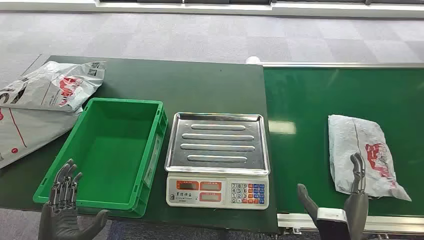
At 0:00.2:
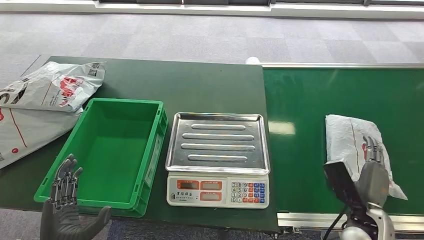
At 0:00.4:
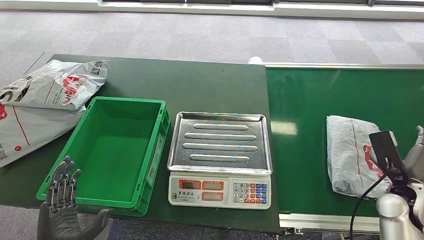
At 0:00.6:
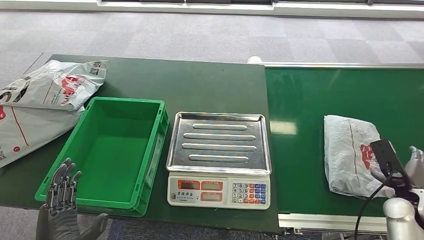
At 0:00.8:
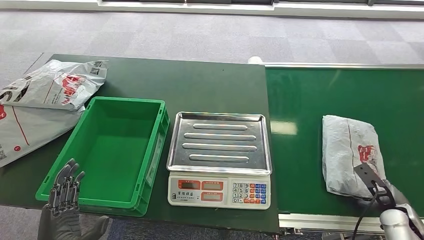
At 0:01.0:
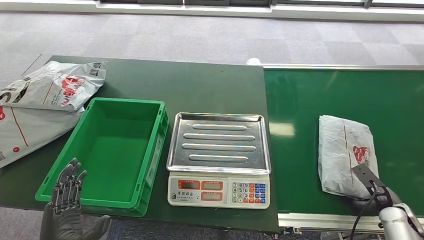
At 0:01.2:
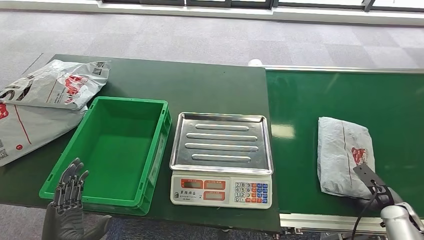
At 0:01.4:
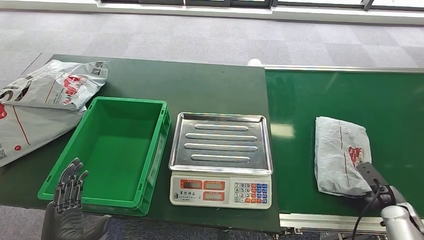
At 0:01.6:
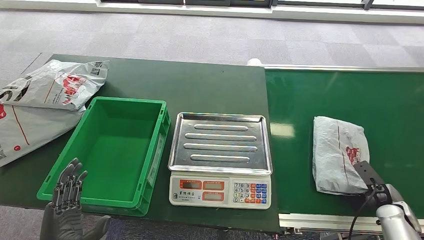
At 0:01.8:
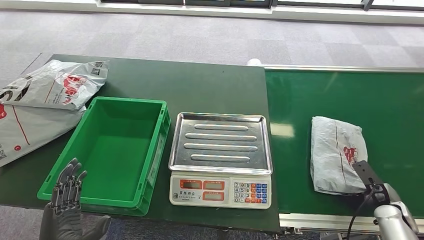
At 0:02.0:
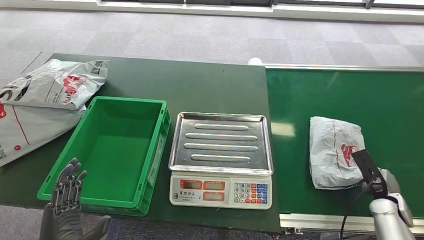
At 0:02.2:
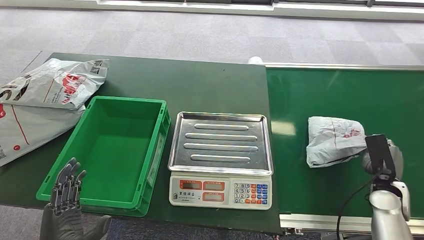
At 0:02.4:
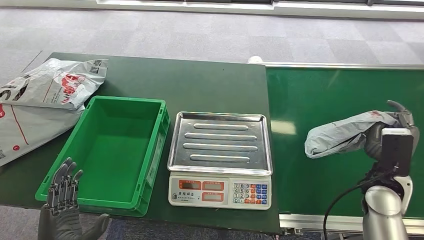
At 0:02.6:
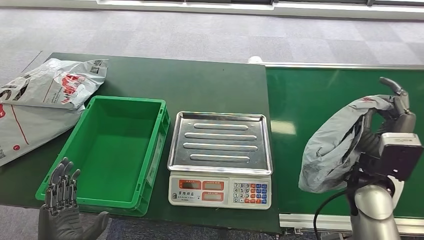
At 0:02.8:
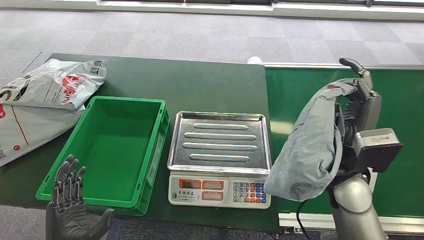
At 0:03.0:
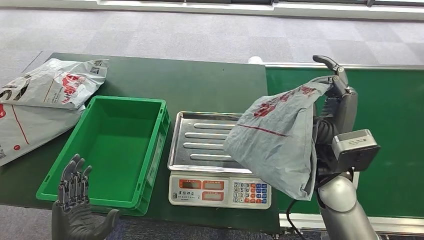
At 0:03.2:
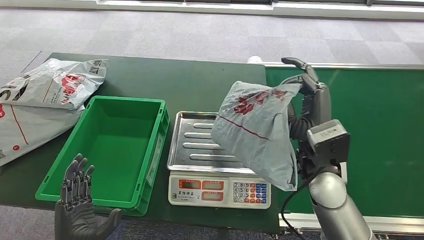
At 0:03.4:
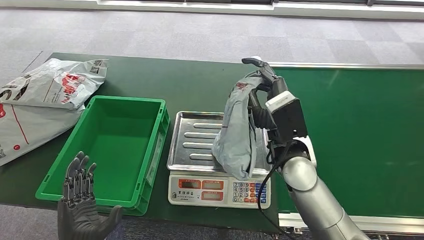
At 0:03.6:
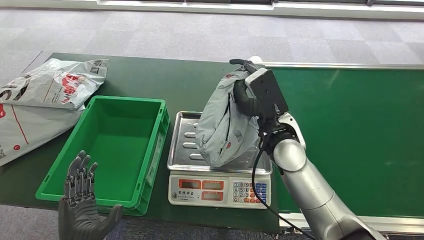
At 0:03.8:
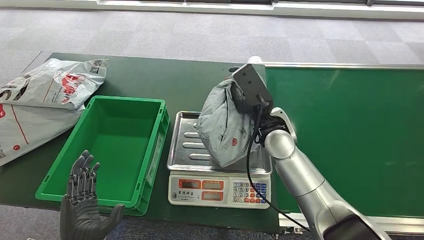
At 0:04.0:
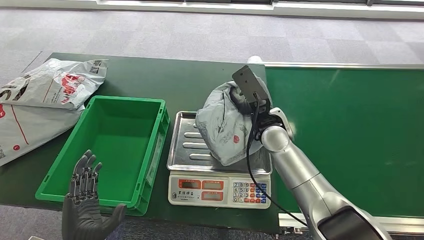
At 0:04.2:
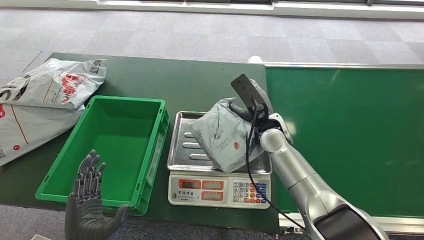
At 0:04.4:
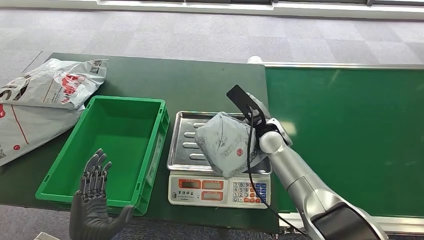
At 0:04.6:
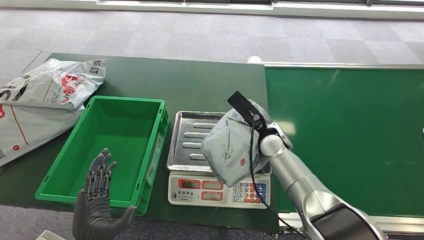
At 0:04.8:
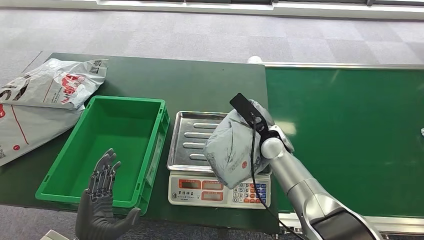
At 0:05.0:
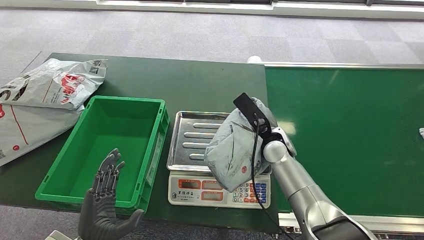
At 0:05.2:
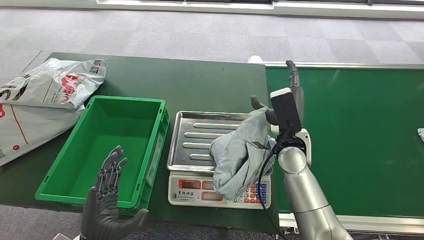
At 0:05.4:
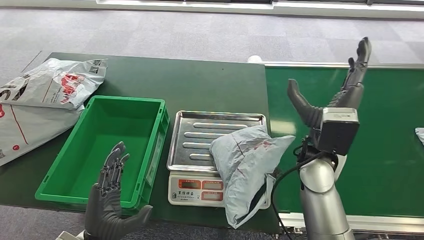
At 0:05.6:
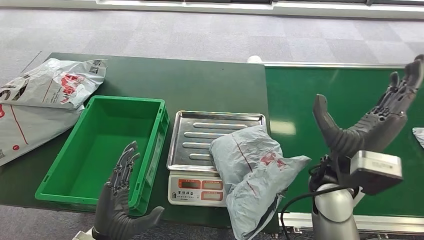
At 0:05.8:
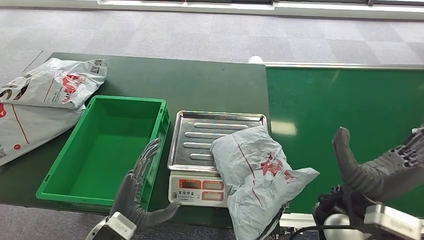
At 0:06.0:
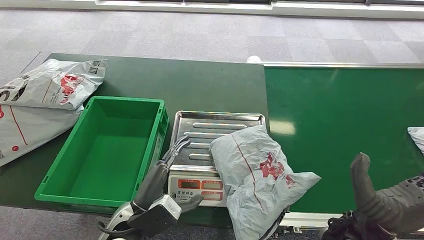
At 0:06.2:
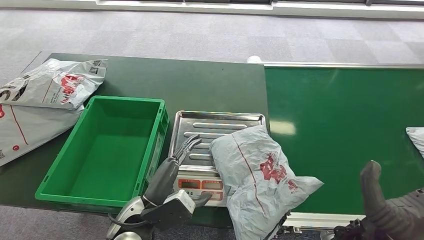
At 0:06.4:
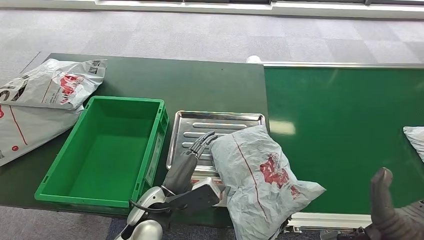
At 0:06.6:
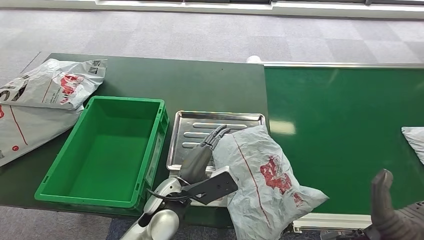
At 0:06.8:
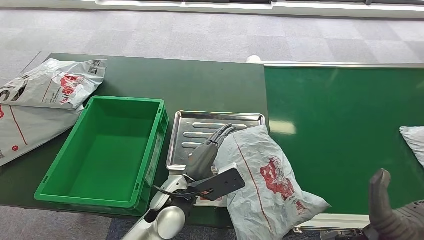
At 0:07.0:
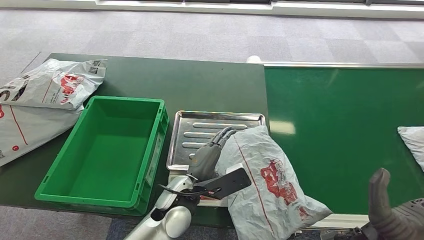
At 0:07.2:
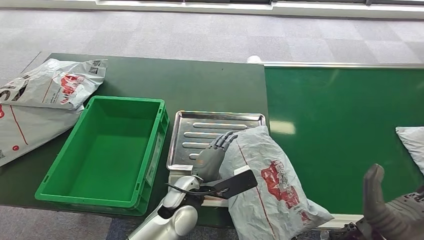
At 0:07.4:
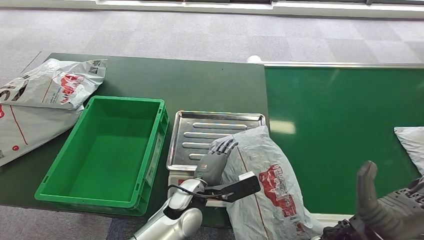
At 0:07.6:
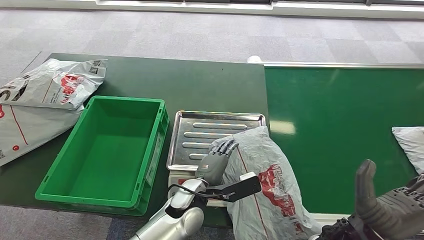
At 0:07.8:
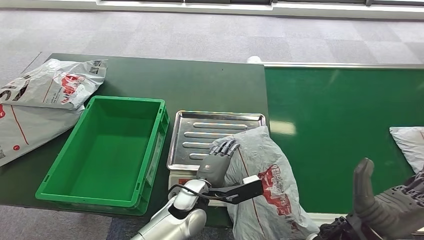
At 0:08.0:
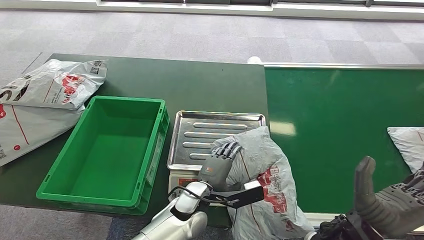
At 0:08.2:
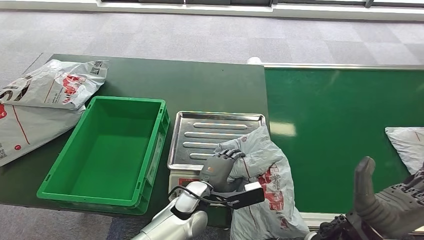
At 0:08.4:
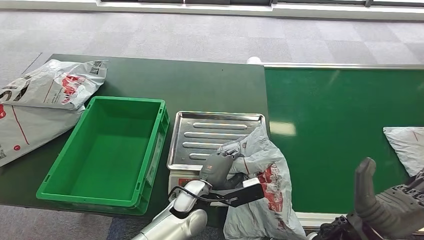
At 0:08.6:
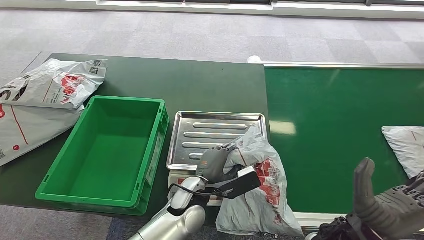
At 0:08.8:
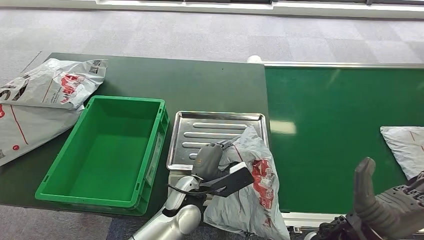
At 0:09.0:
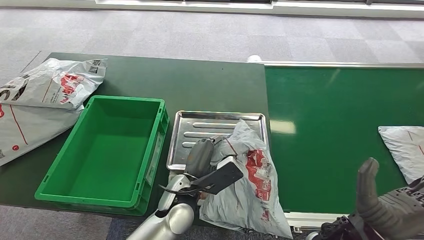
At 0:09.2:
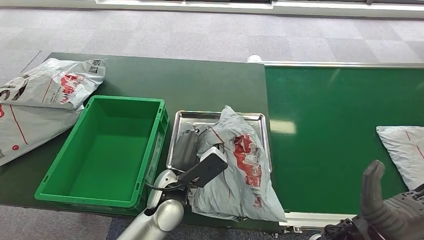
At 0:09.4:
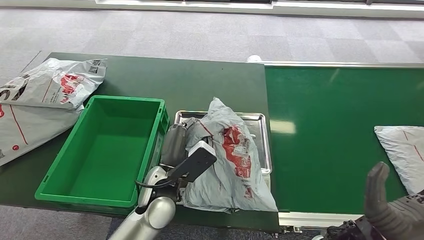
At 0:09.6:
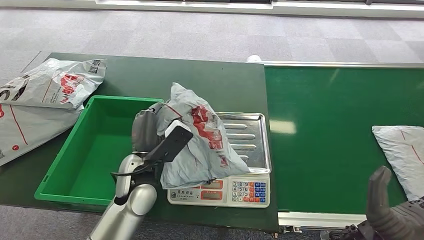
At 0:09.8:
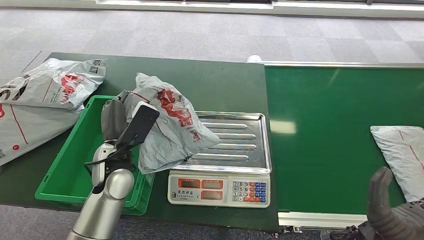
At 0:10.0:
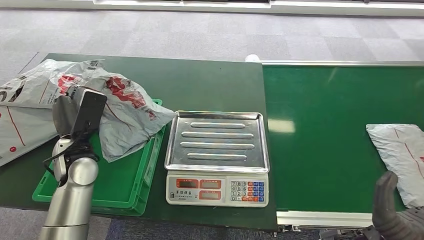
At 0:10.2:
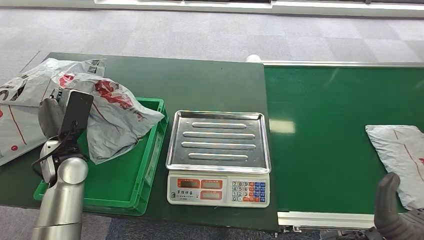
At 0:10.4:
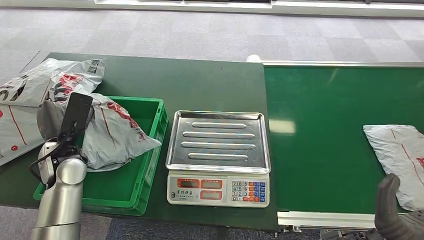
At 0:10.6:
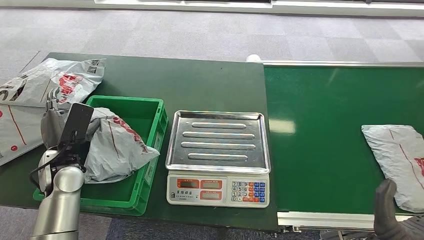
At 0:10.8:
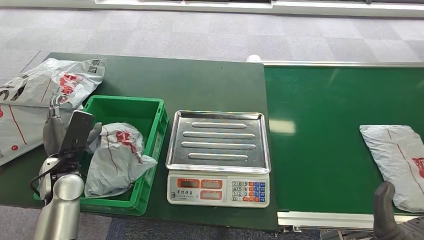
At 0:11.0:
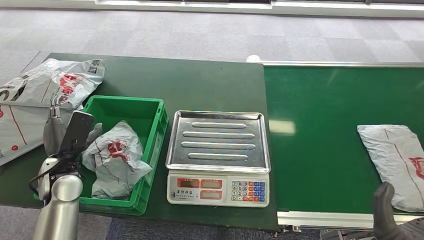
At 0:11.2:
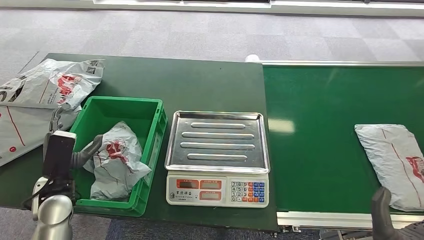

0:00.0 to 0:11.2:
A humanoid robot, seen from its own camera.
Step, 0:00.0 to 0:03.0: Pick up the package from the conveyor belt.
Step, 0:03.2 to 0:05.6: Place the package onto the inbound machine.
Step, 0:05.8 to 0:09.6: Pick up the package from the inbound machine.
Step, 0:09.8 to 0:11.2: Place the package into the parcel locker.
0:03.2 to 0:04.8: The right hand goes some 15 cm downward and forward.
0:04.8 to 0:06.4: The left hand is displaced to the right and forward by roughly 15 cm, while the right hand travels backward by approximately 25 cm.
0:06.4 to 0:08.0: The left hand heads to the right and downward, covering some 10 cm.

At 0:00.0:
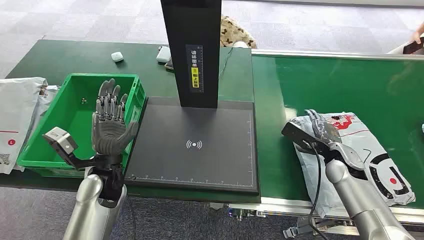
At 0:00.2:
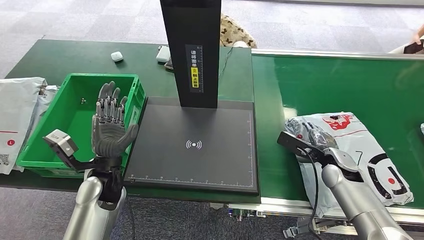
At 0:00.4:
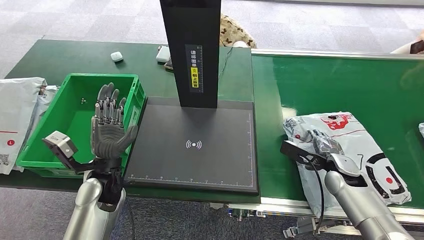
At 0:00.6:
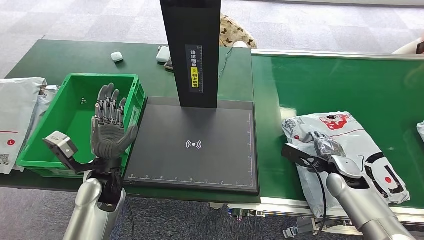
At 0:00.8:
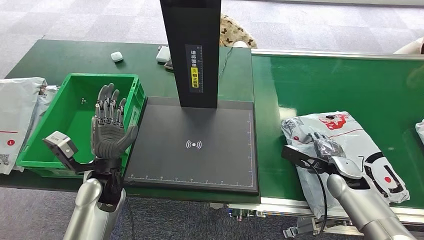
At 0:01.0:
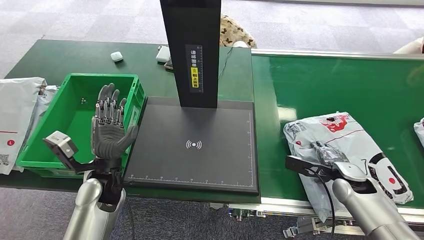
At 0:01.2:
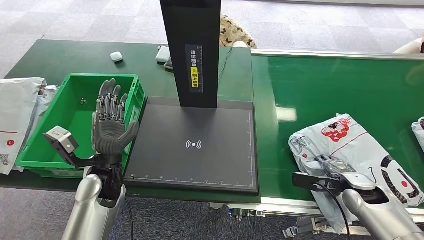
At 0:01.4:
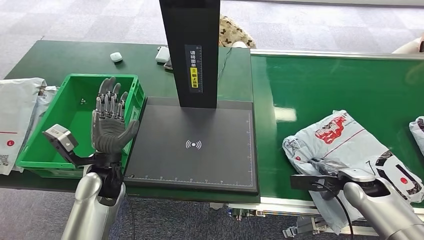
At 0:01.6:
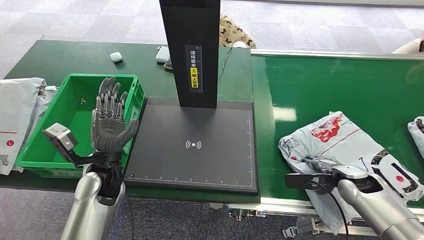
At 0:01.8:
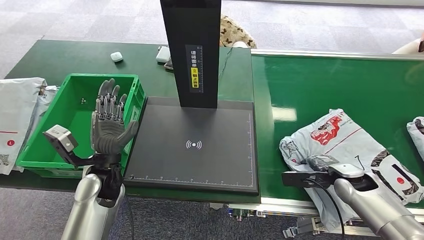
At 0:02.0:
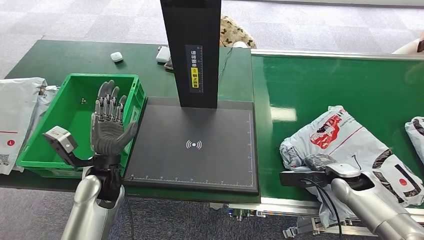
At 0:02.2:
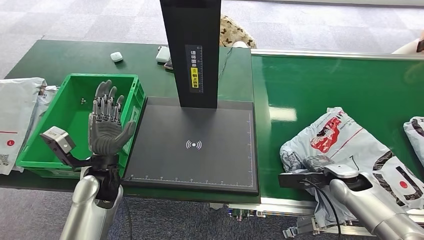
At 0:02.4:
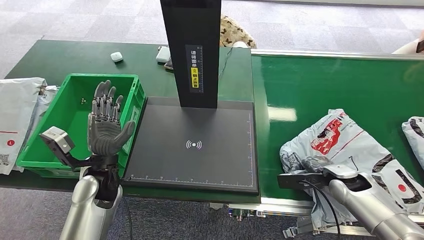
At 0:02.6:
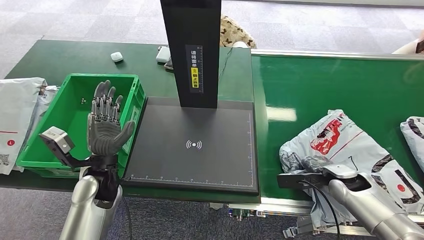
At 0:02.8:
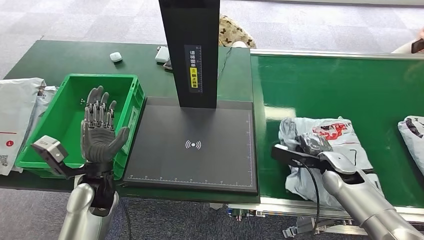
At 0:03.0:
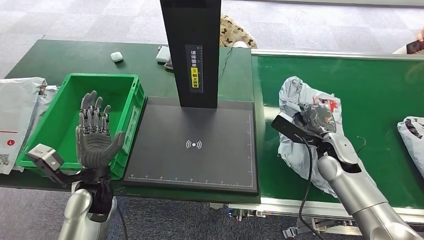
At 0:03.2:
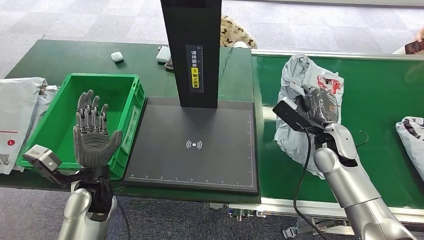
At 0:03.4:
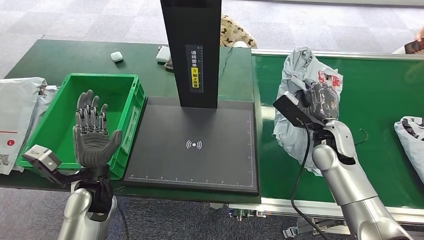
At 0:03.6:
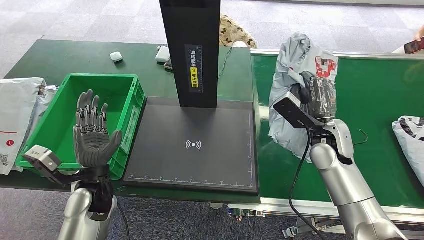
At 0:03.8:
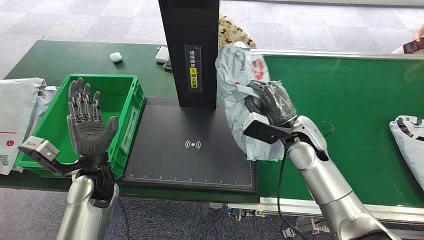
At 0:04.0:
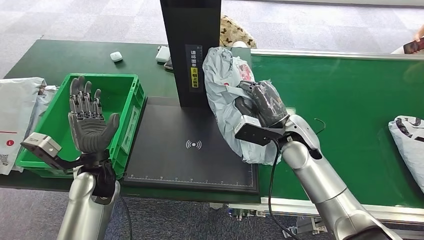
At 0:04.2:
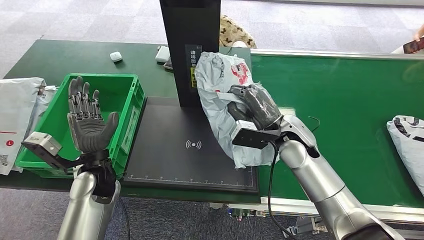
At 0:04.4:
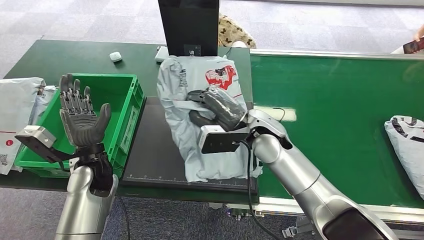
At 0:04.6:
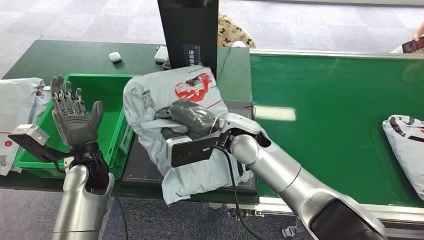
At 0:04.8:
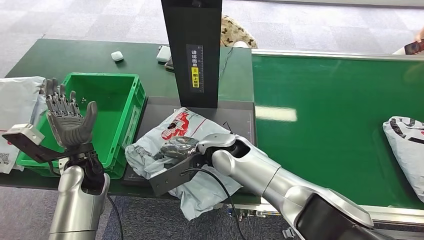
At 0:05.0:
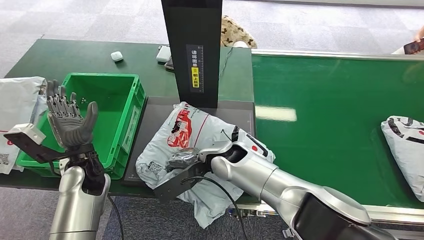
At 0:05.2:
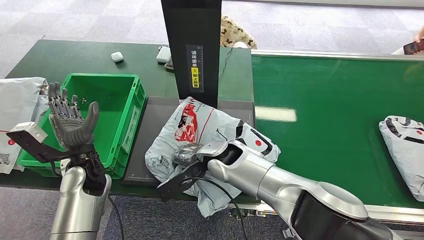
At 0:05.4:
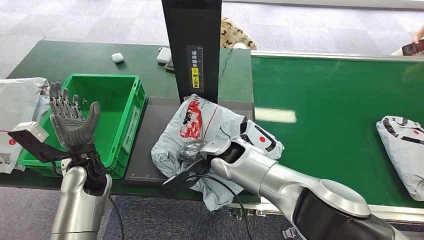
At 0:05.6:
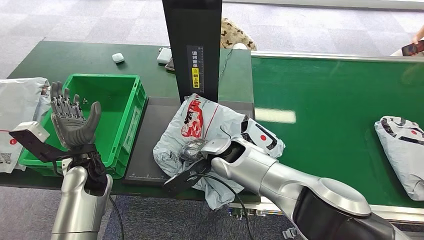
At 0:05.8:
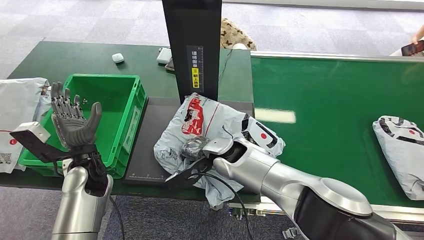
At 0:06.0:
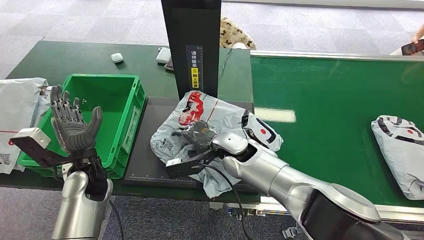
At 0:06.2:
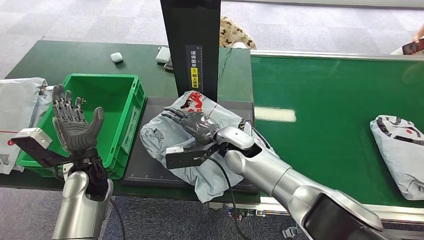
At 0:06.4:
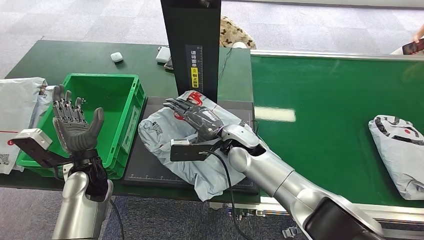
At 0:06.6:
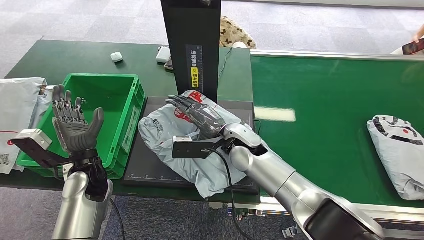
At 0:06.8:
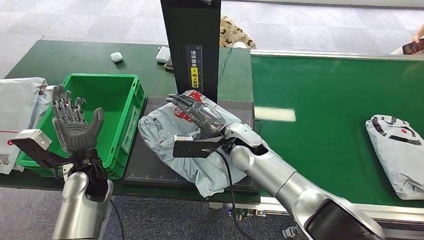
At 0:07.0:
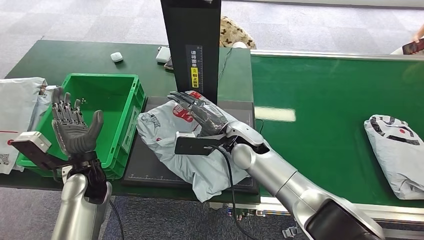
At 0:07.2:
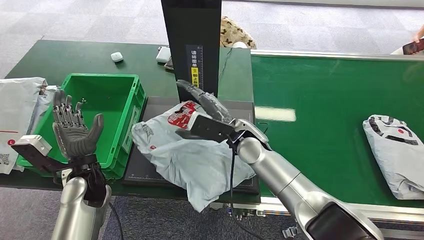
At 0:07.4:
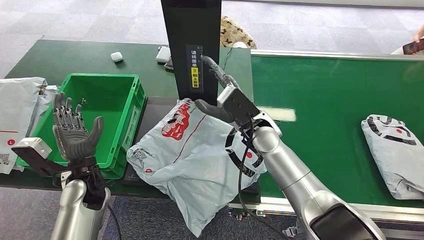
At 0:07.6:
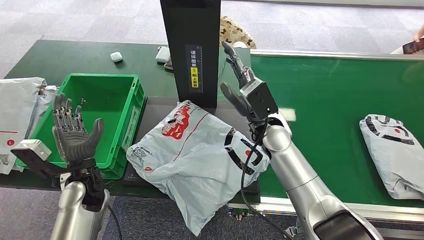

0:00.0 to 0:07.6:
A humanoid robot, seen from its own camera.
Step, 0:00.0 to 0:03.4: Pick up the package from the conveyor belt.
Step, 0:03.6 to 0:06.2: Place the package onto the inbound machine.
